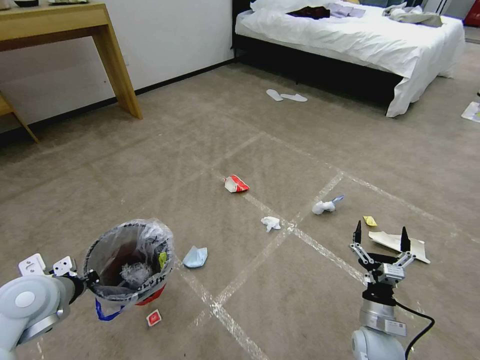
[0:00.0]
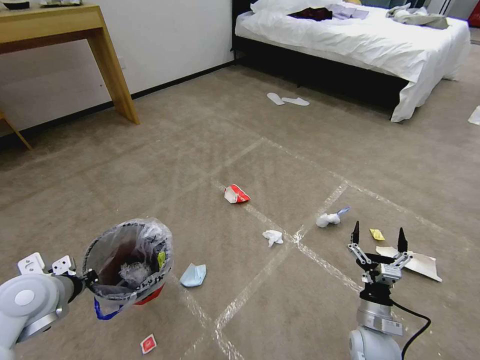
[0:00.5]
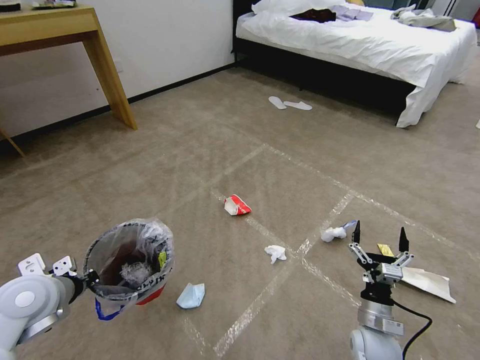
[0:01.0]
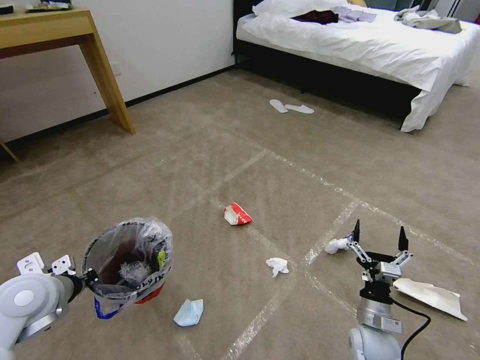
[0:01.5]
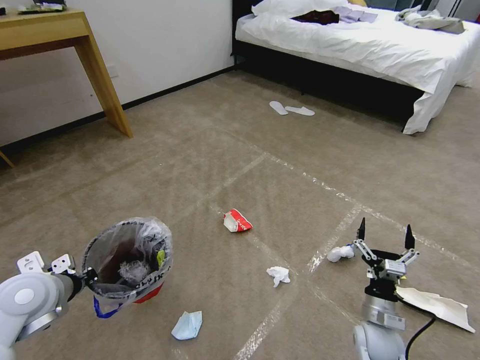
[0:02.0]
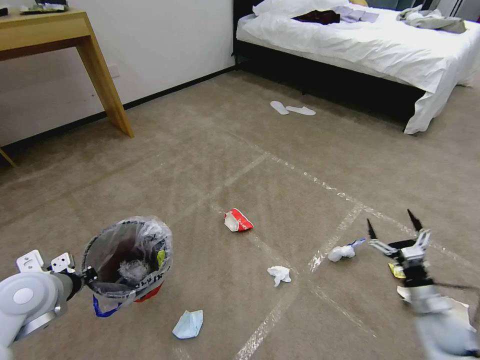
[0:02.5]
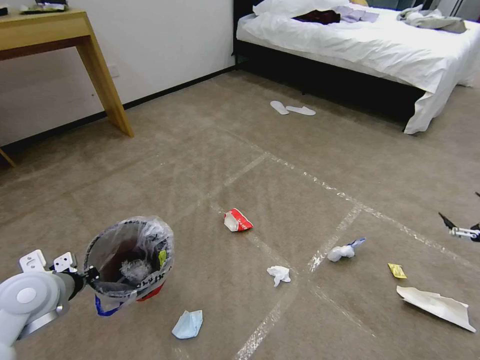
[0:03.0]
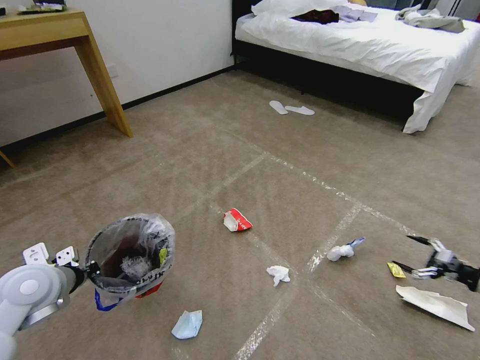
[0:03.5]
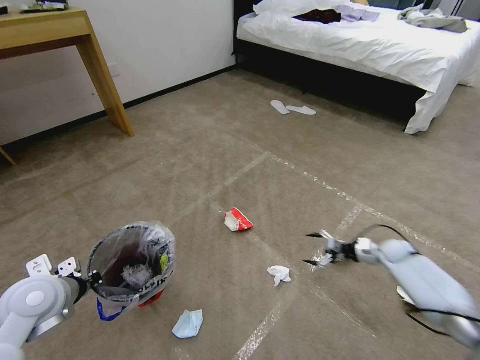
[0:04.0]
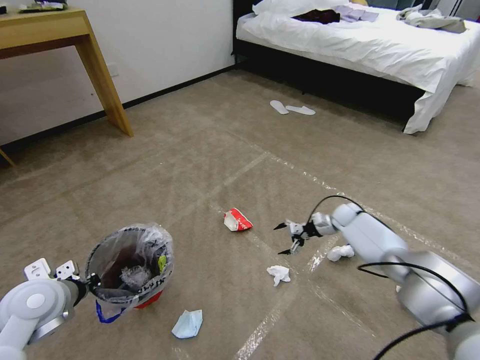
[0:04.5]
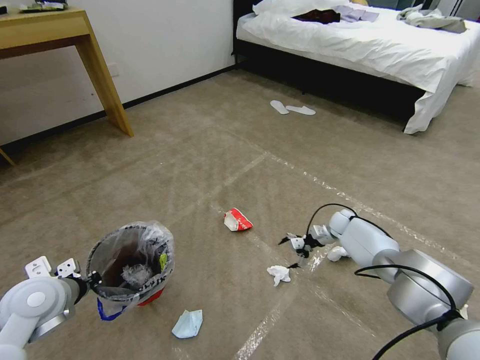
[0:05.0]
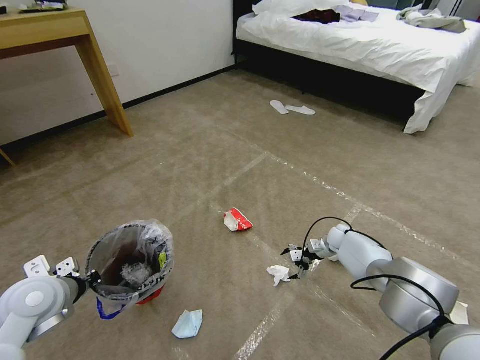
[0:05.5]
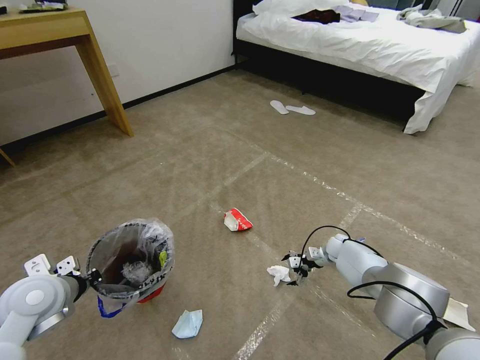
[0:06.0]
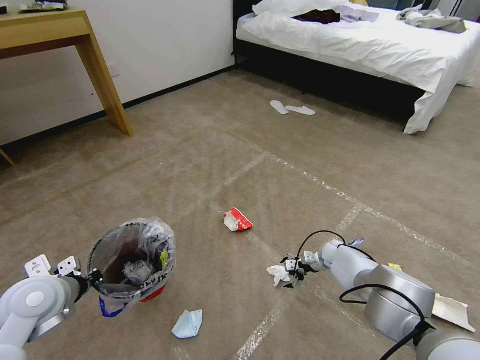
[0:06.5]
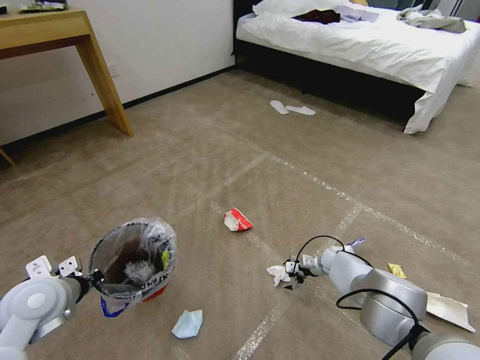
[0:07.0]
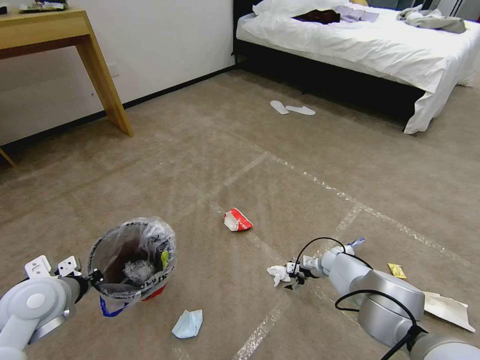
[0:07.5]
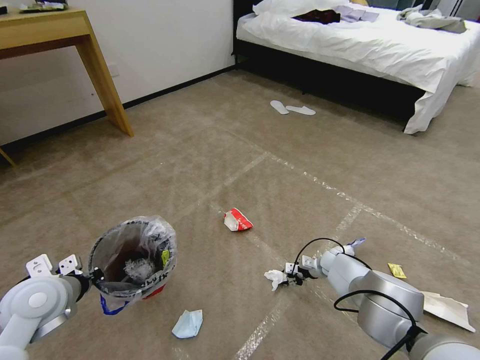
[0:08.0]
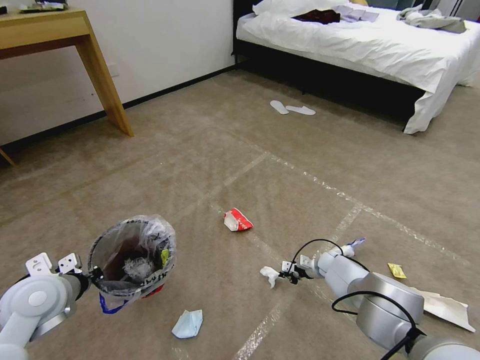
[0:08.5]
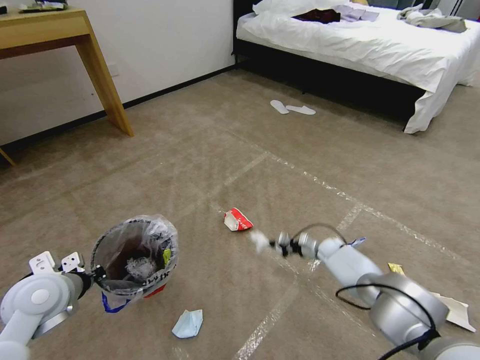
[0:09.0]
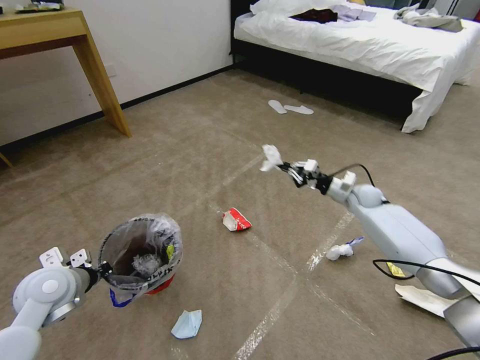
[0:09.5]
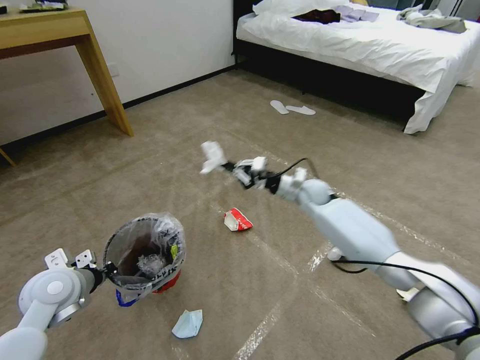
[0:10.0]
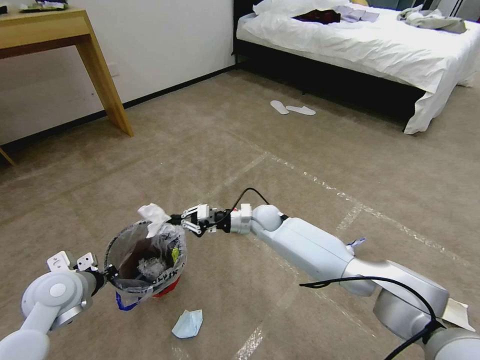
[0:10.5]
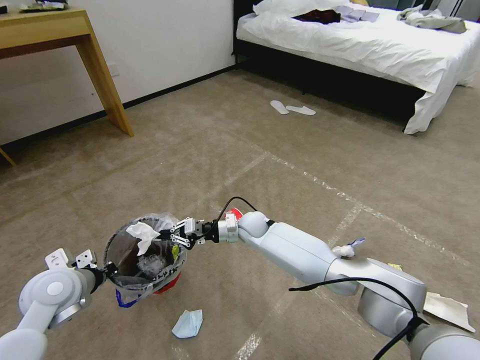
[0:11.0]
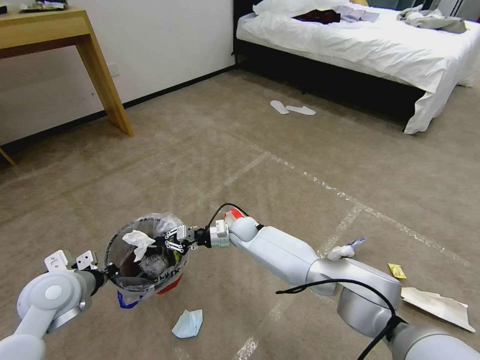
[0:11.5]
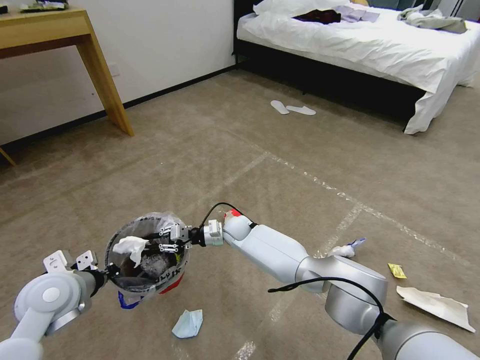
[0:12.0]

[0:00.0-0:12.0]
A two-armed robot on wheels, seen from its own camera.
Task of the whole recording: Pick up the trash bin and place the garbage on the floor into it.
2.0 to 4.0 s: The right gripper heads forward and to the right, covering roughly 30 cm.
4.0 to 6.0 s: The right gripper travels to the left, downward and forward by roughly 15 cm.
6.0 to 8.0 s: The right gripper moves about 5 cm, and closes up.
8.0 to 10.0 s: The right gripper goes approximately 30 cm upward and to the left, and closes.
10.0 to 12.0 s: The right gripper travels to the left and downward by approximately 25 cm.

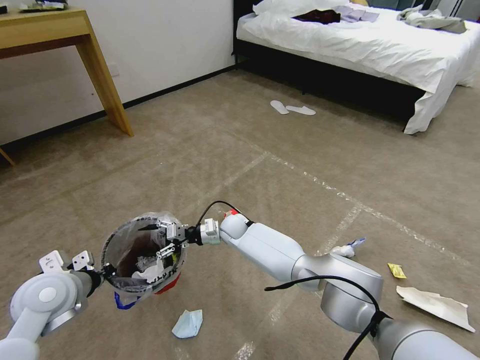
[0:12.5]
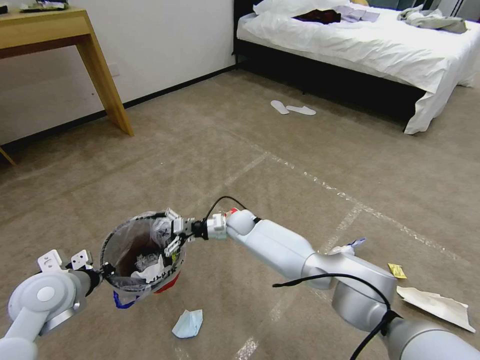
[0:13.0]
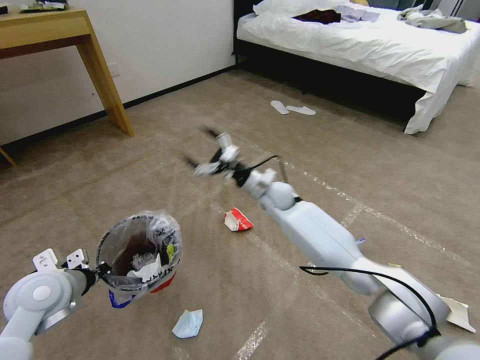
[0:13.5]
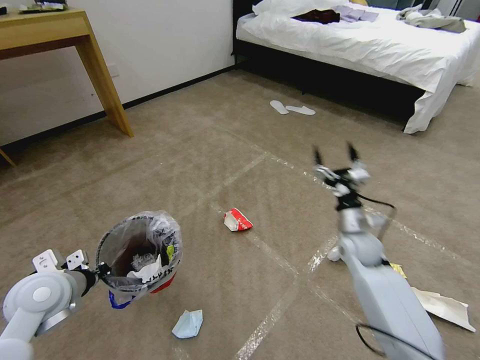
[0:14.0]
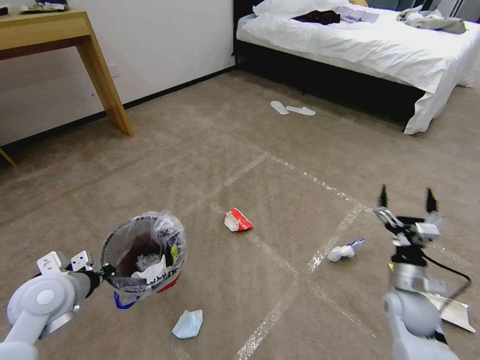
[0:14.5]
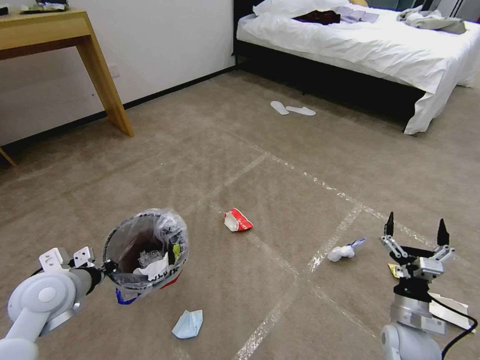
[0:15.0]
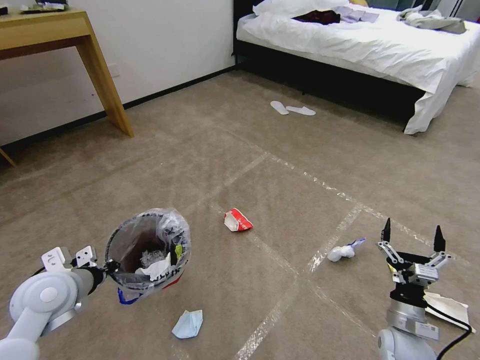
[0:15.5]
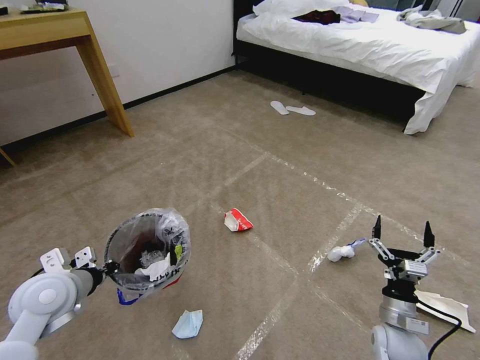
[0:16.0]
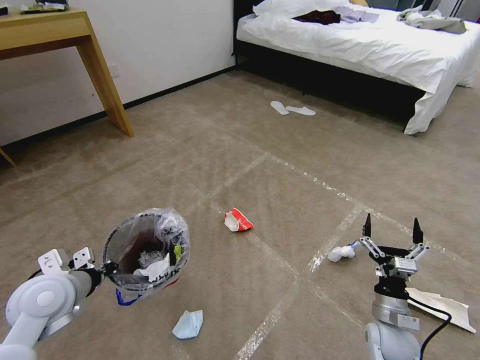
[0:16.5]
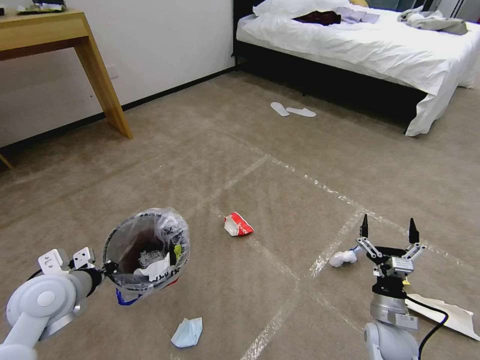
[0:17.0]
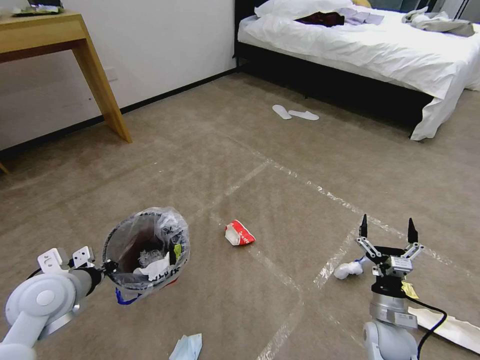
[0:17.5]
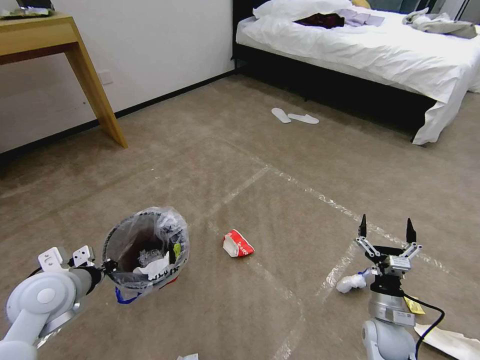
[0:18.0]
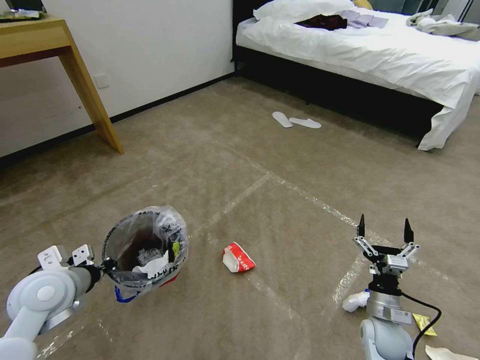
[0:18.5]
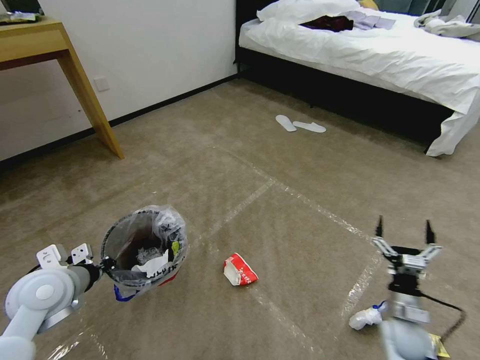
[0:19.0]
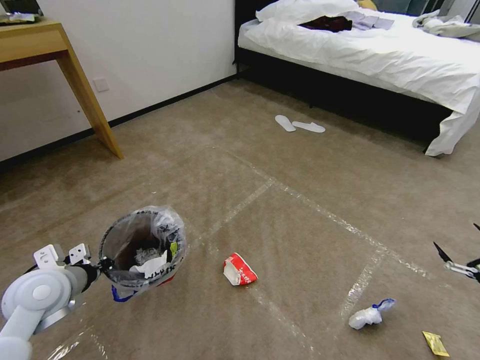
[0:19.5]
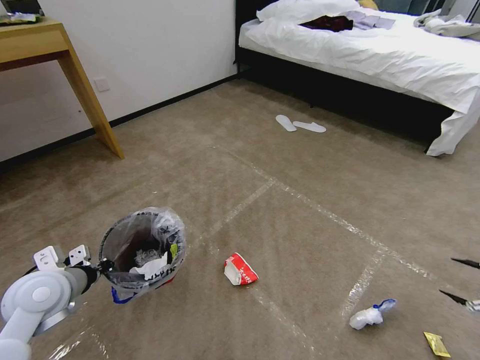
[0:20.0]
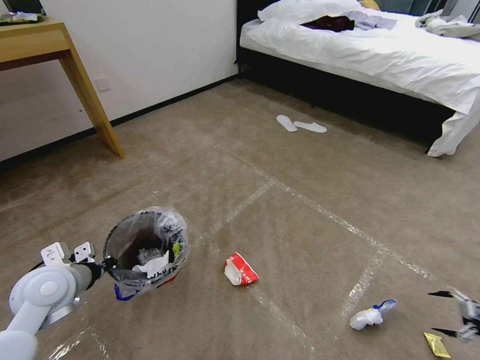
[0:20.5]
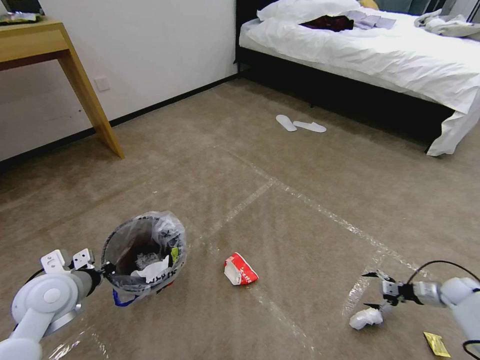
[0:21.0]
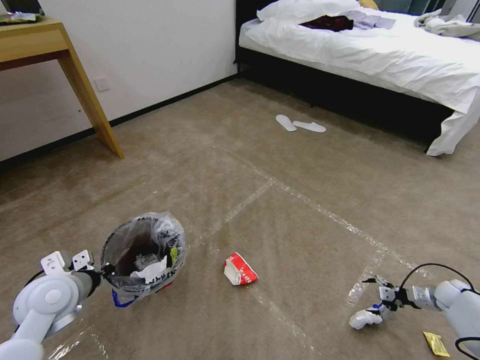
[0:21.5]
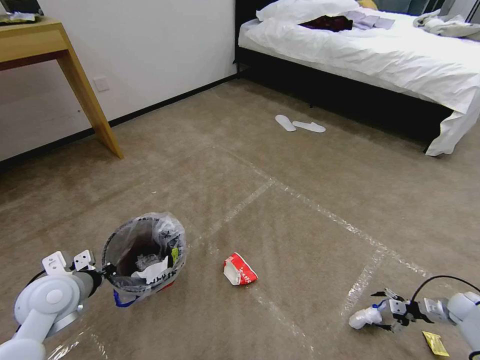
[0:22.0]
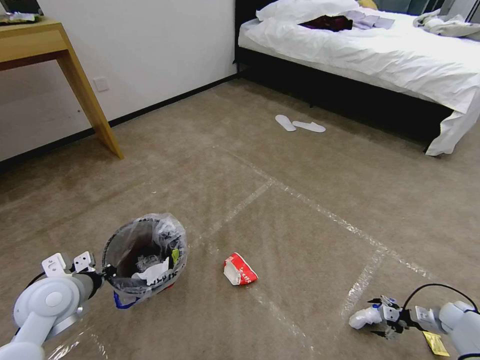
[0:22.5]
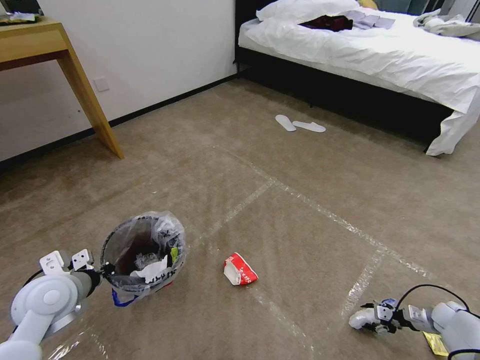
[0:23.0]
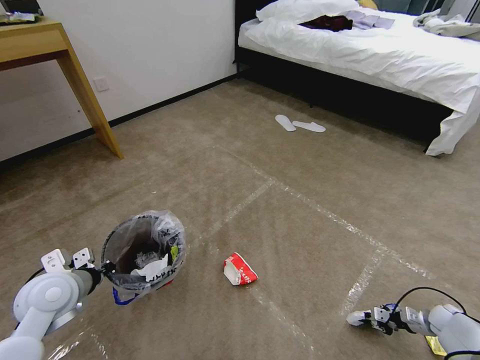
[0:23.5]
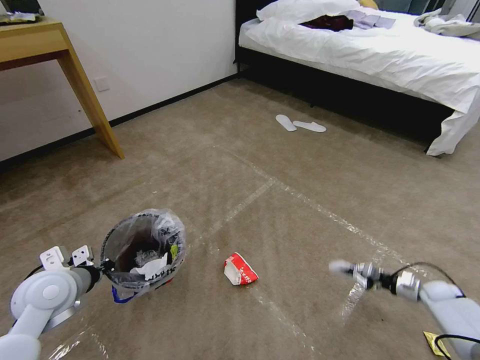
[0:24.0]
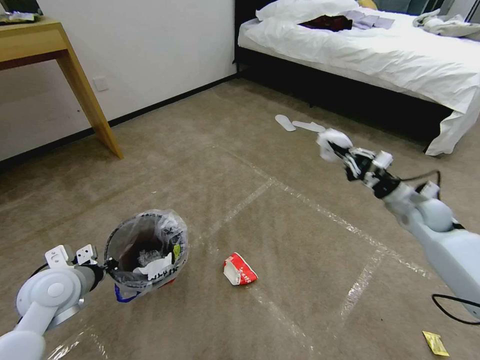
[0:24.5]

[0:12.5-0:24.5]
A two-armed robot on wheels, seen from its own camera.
Task of the whole recording: Pick up the trash bin and place the garbage on the floor into it.
12.5 to 14.5 s: The right gripper moves to the right and backward, roughly 50 cm.
14.5 to 16.5 s: The right gripper is displaced downward by about 5 cm.
18.5 to 20.5 s: The right gripper goes about 40 cm to the right.
20.5 to 22.5 s: The right gripper shifts about 25 cm downward, to the left and forward.
22.5 to 24.5 s: The right gripper travels upward, to the left and forward by roughly 35 cm, and closes up.

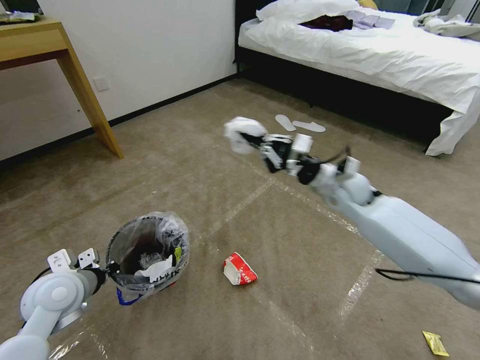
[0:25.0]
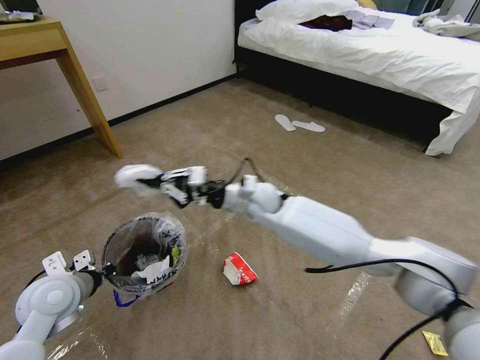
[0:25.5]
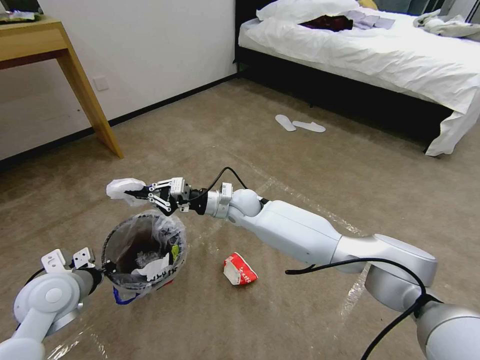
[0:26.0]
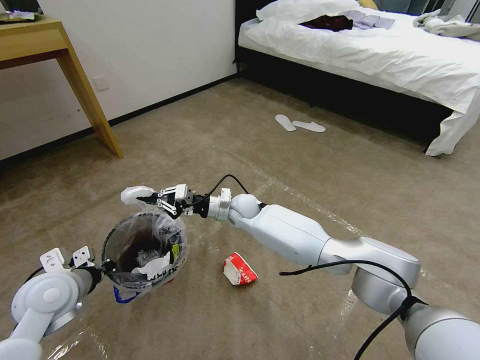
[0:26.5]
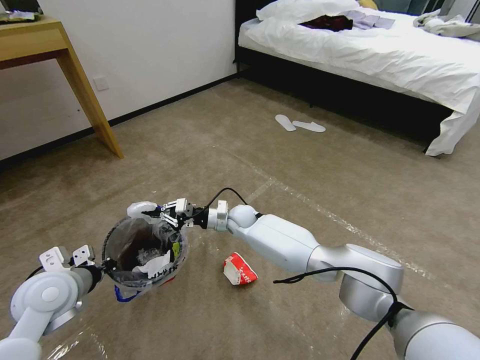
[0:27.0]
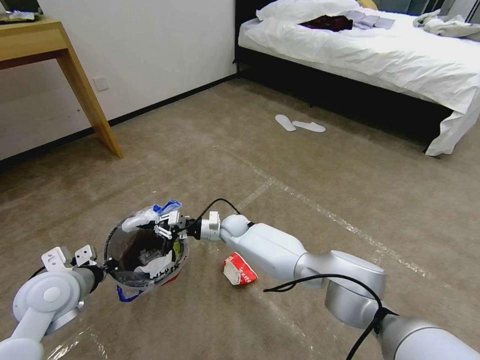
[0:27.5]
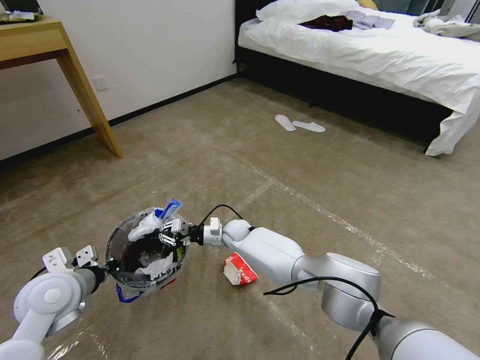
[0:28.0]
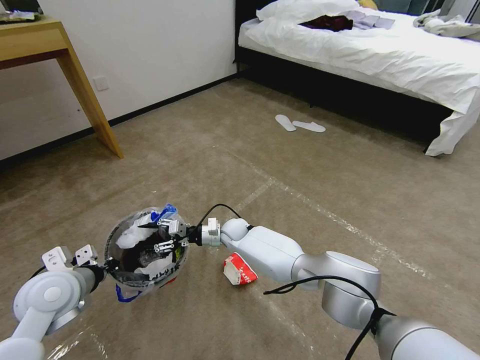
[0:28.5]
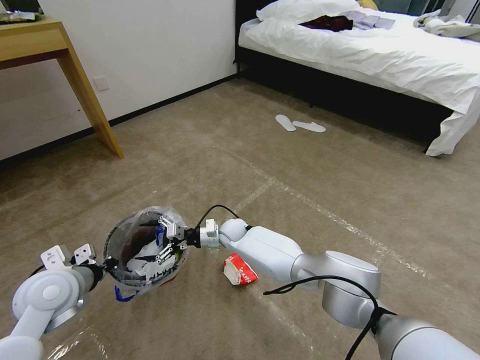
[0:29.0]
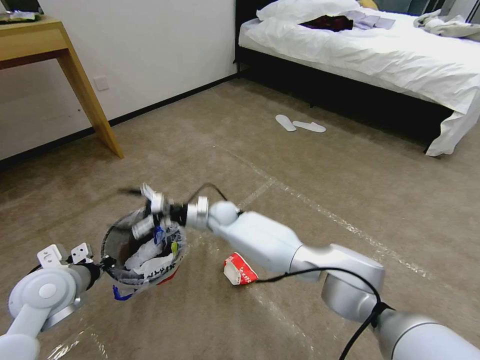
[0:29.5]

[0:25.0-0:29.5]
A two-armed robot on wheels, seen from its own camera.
Task of the whole recording: Pick up the trash bin and place the garbage on the floor into it.
25.0 to 27.0 s: The right gripper travels to the left and downward by approximately 30 cm.
27.0 to 29.5 s: The right gripper is displaced to the left by some 5 cm, and opens.
